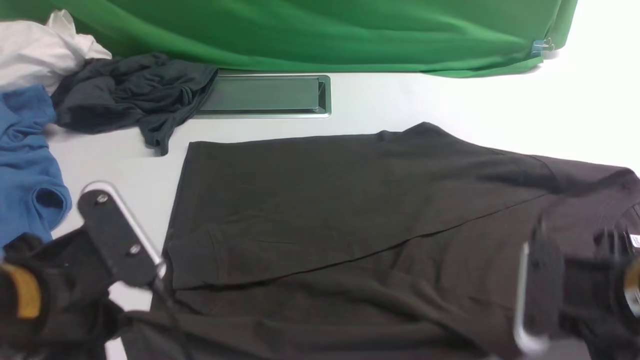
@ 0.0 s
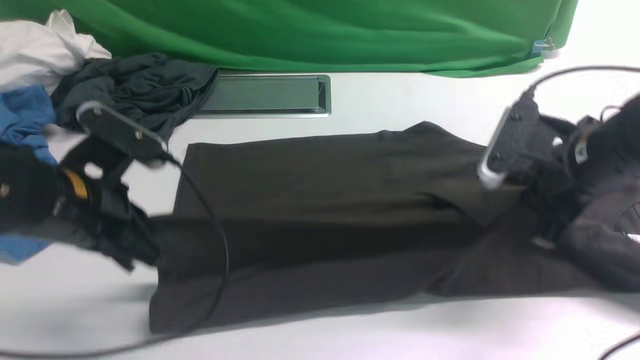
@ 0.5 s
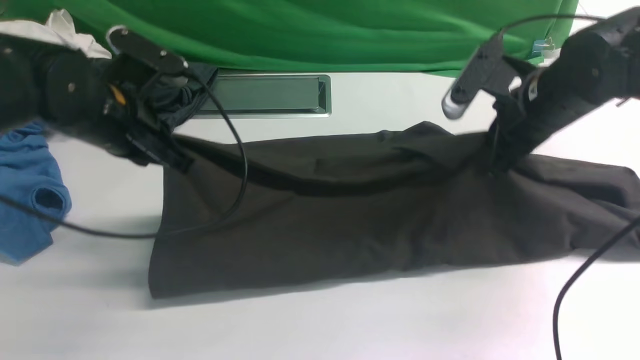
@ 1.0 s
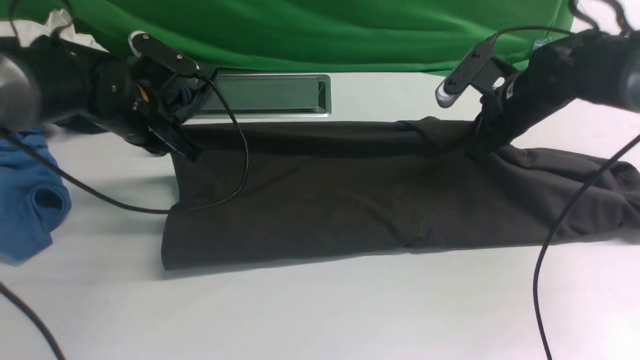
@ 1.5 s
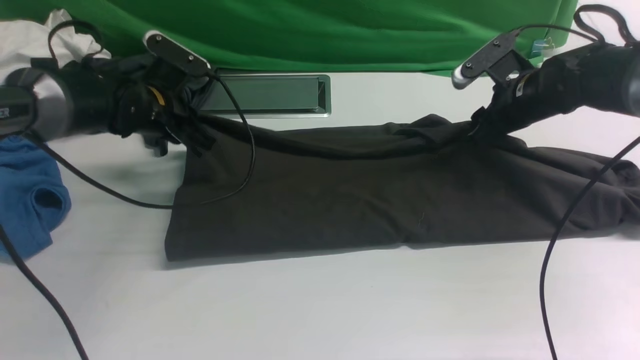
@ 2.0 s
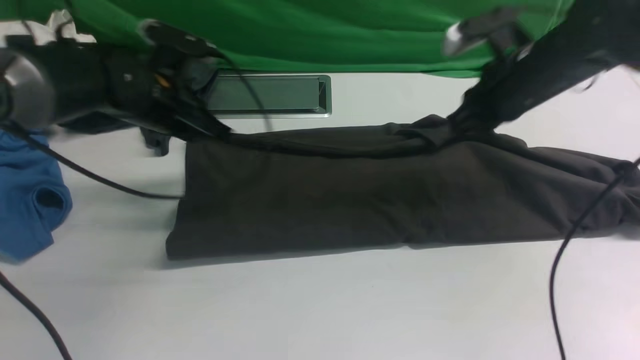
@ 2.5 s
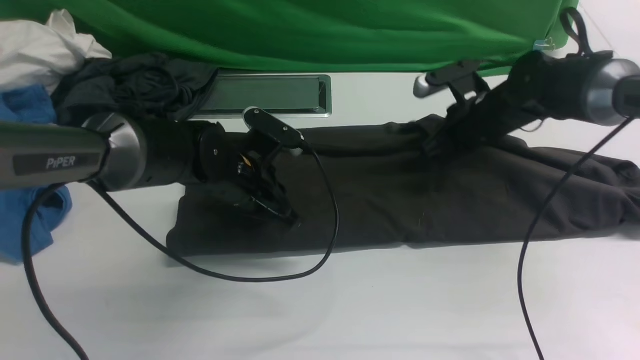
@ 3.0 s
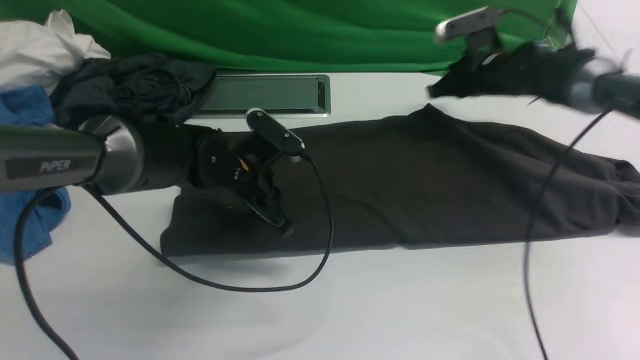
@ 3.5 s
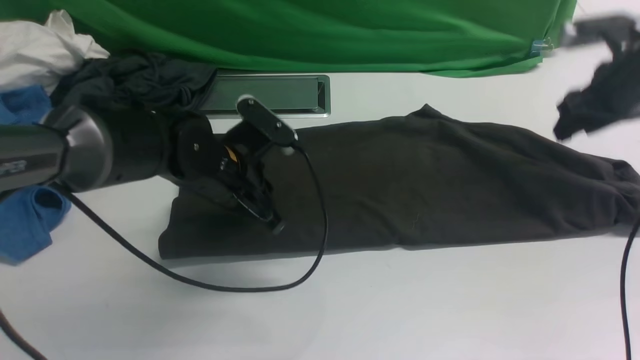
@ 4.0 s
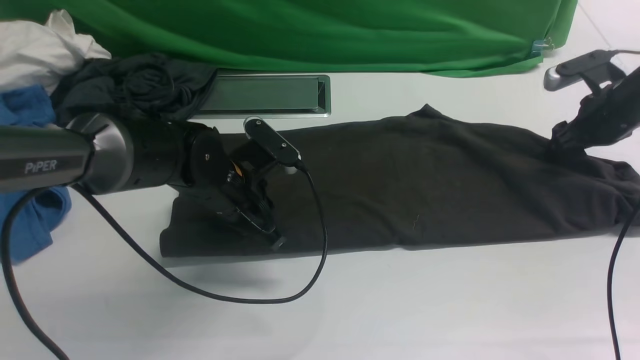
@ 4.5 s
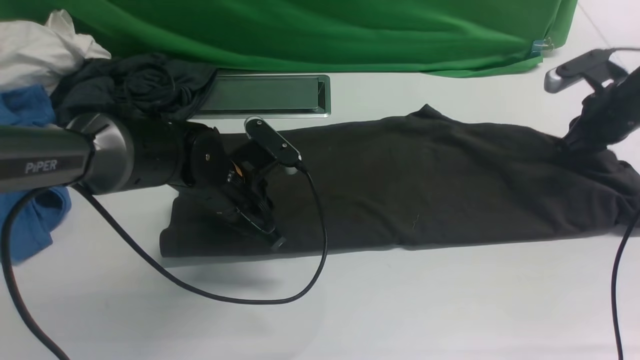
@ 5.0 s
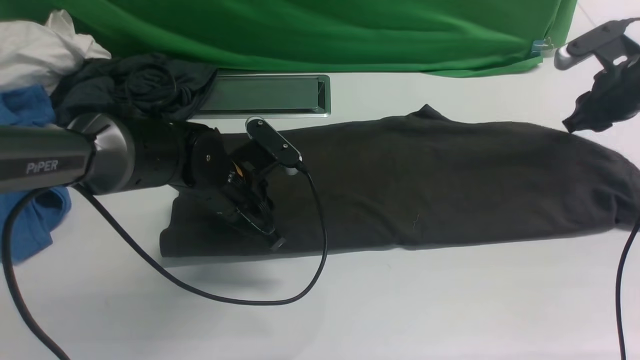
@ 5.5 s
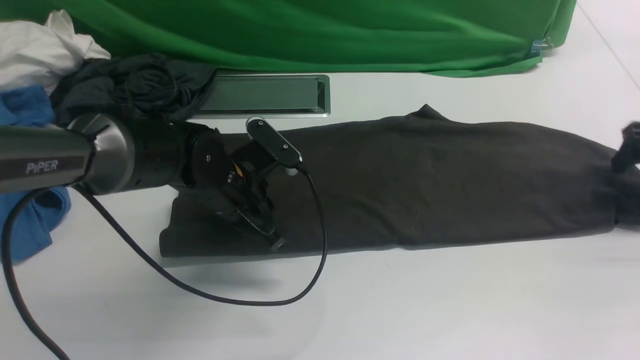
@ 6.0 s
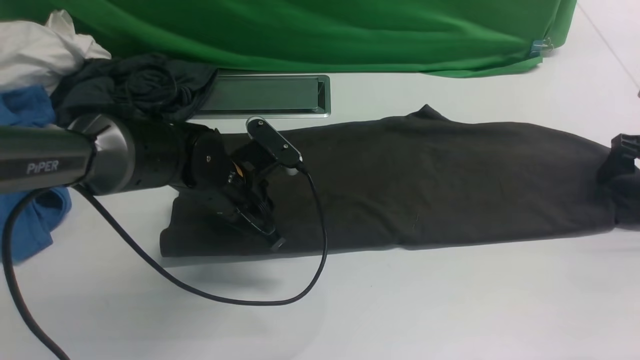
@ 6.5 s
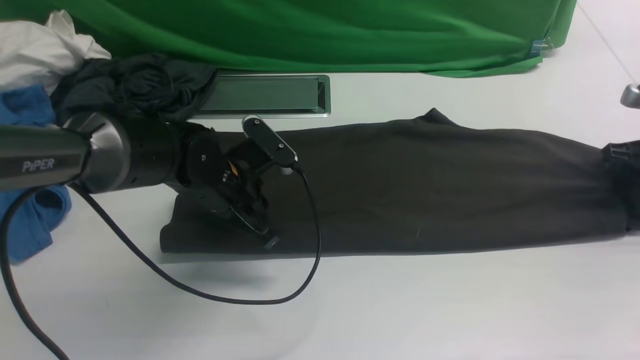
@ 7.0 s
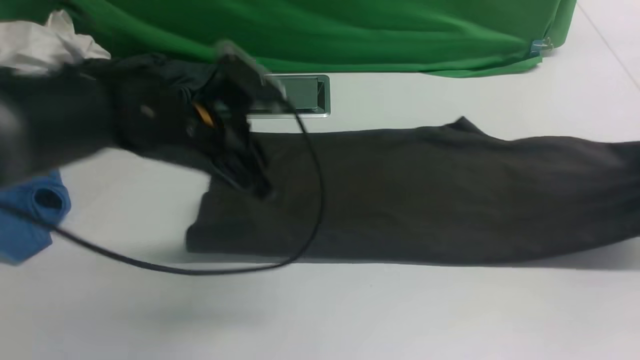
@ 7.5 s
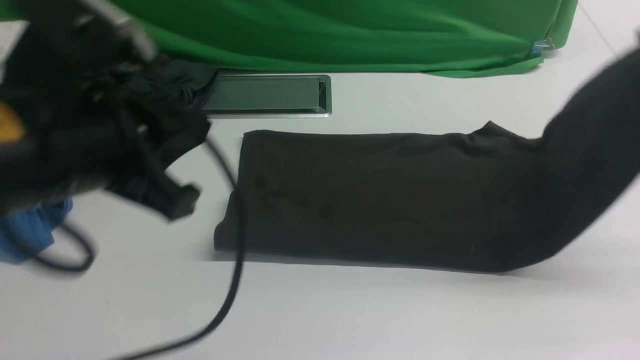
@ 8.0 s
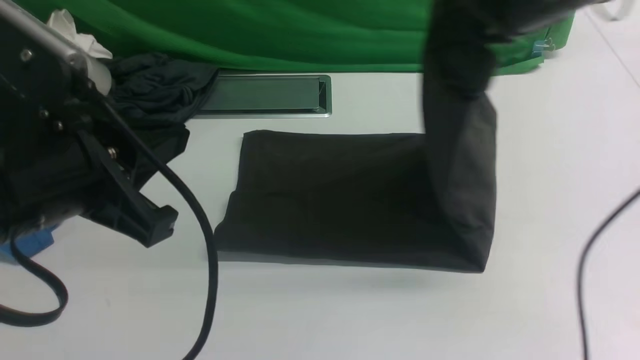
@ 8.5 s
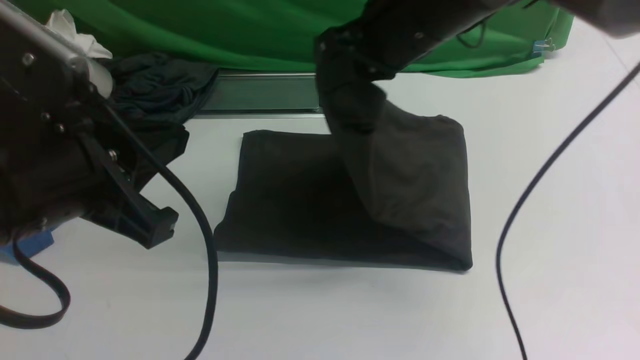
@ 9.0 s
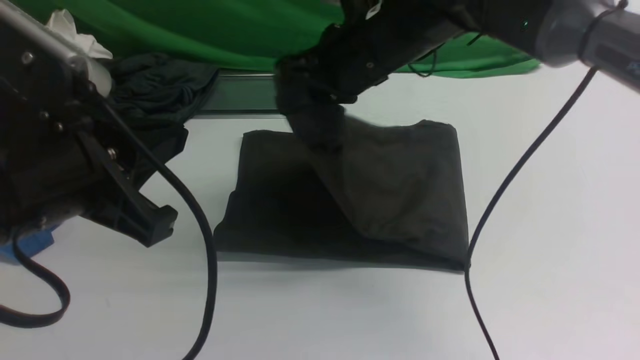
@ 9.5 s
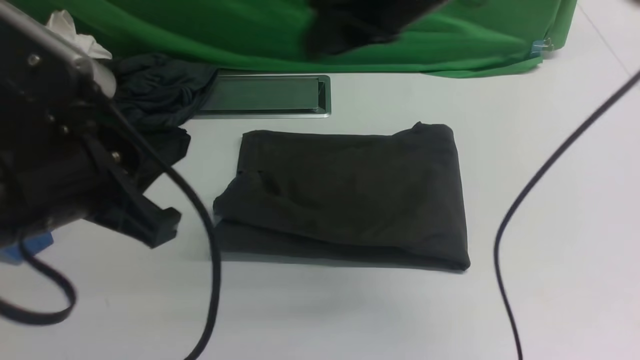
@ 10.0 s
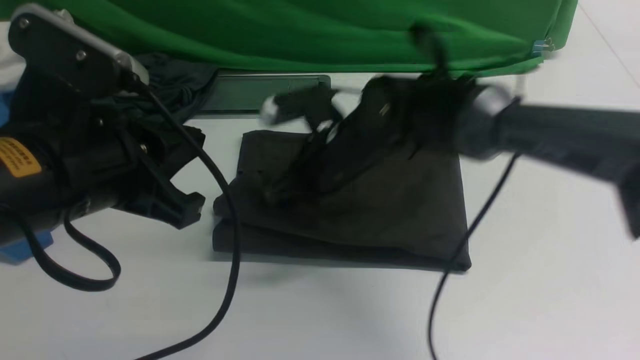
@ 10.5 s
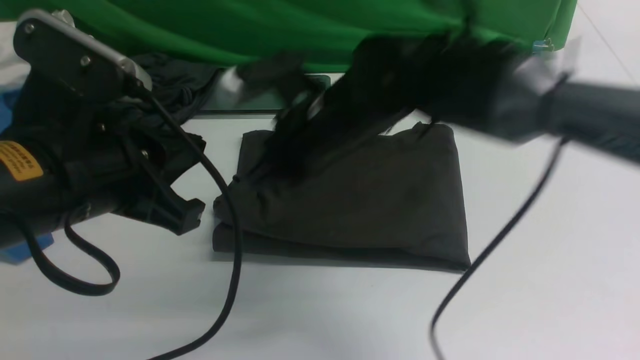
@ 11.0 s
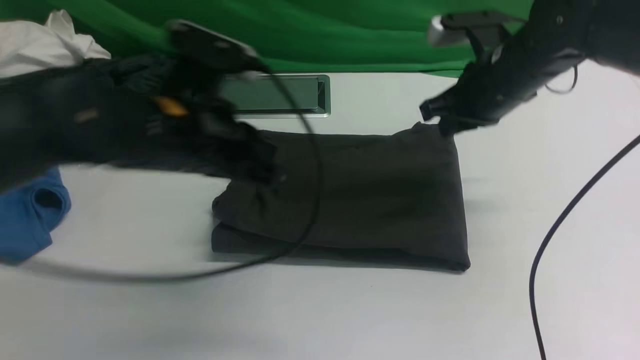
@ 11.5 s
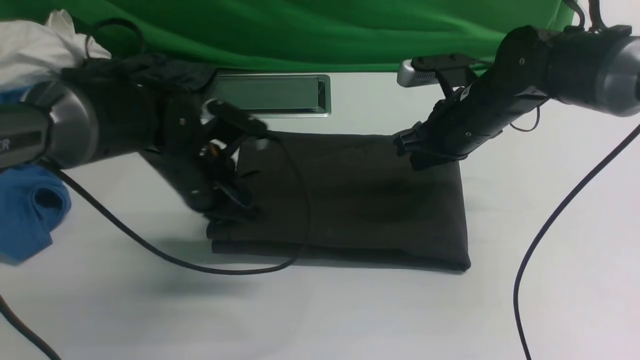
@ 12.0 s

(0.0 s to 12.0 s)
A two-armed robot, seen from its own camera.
Step, 0.0 s - 2.0 s: use both arms to drag the lower edge of the fabric forward and fold it over the upper edge.
Step, 2.5 s - 7.5 s: use the right arm to clamp the right edge of the fabric.
Step, 8.0 s - 9.5 s: use the right arm to drag the right edge of the fabric to the left and folds it over the left edge.
0.0 s - 2.0 s: Both grippers move forward, some 30 cm. The right gripper opens up, while the left gripper opens up.
2.0 s - 4.0 s: The right gripper is displaced to the right by some 10 cm, and closes, then opens again; the left gripper moves to the right and backward, about 15 cm, and closes.
4.0 s - 6.0 s: The right gripper is displaced to the right by approximately 10 cm, and closes and opens again.
6.0 s - 8.0 s: The right gripper is displaced upward and to the left by about 20 cm, and closes up. Meanwhile the left gripper is displaced upward and backward by some 25 cm.
8.0 s - 10.0 s: The right gripper shifts roughly 25 cm to the left.
10.0 s - 12.0 s: The left gripper heads forward and downward, covering approximately 25 cm, while the right gripper is displaced downward and to the right by some 15 cm, and closes its fingers.

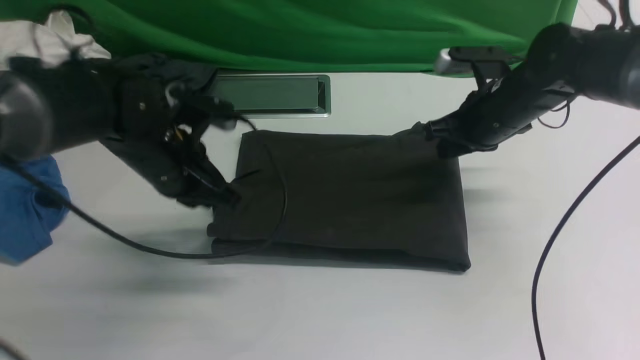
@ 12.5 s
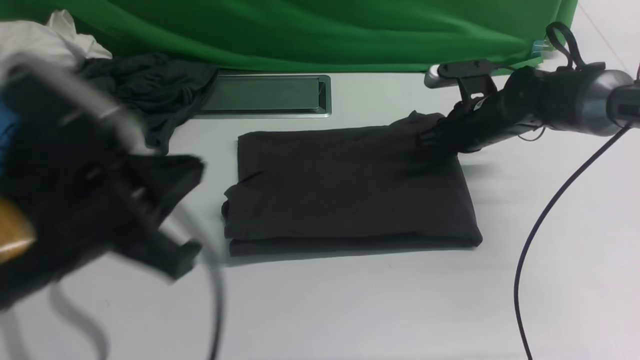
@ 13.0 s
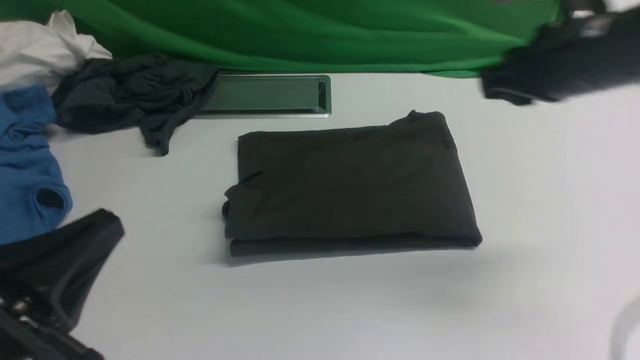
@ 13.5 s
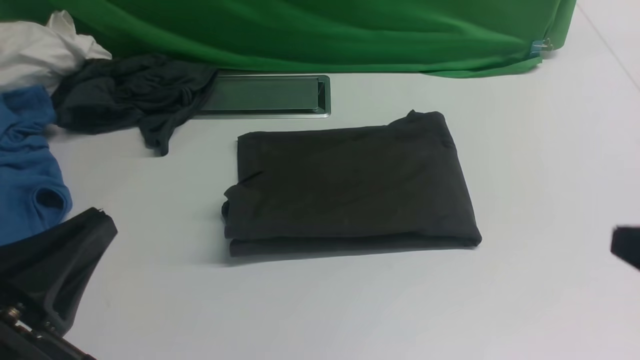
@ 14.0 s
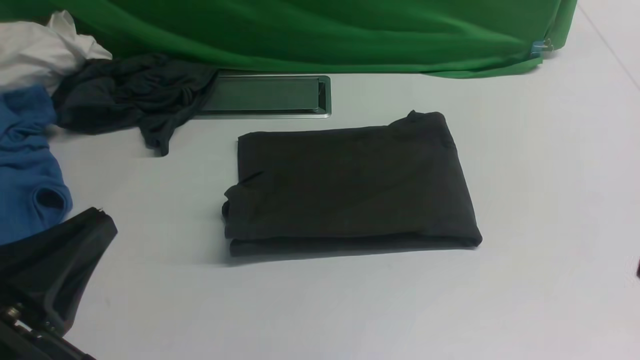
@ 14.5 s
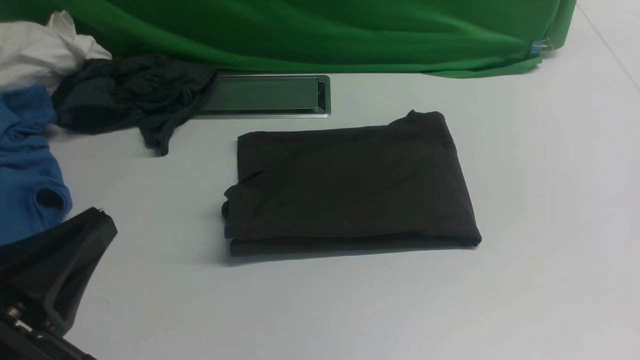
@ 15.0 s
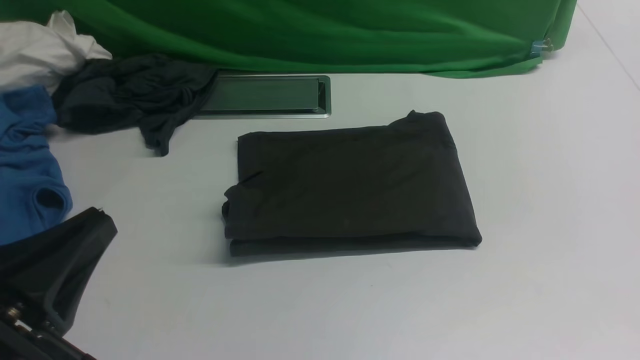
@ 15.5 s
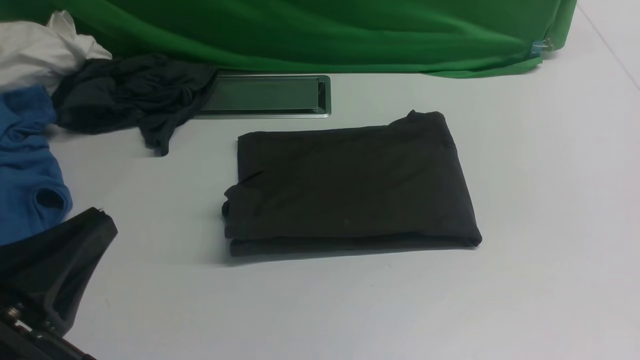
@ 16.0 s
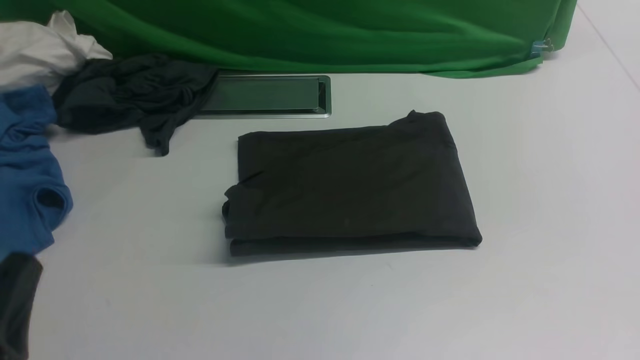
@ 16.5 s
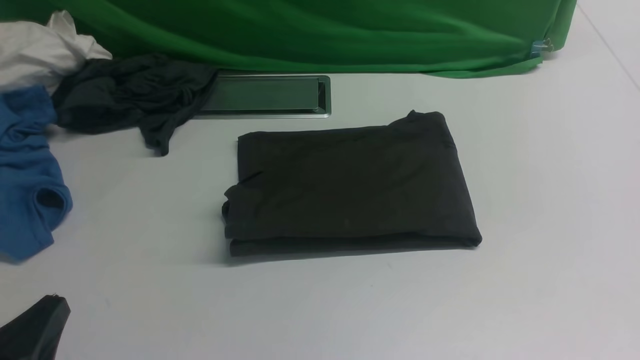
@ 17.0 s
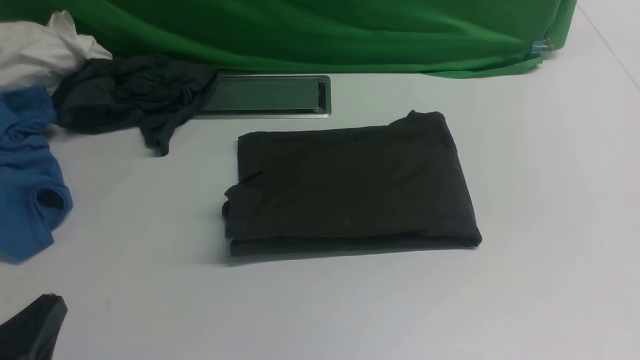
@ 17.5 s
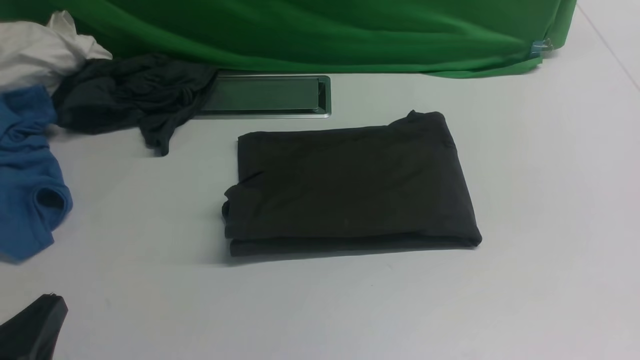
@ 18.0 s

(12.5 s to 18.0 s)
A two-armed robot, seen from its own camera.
12.5 s - 14.5 s: Both grippers move backward, about 30 cm.
16.0 s - 18.0 s: The left gripper travels downward by approximately 10 cm.
